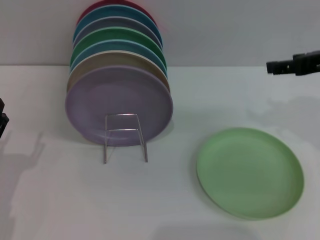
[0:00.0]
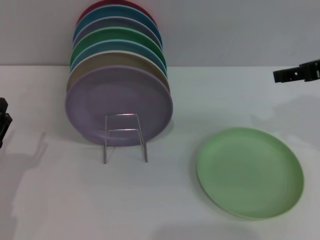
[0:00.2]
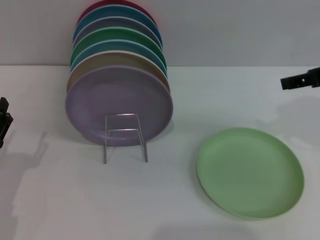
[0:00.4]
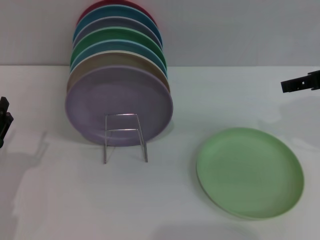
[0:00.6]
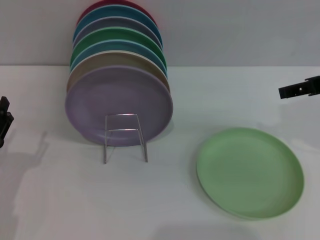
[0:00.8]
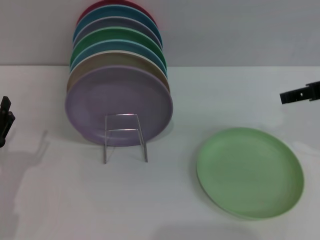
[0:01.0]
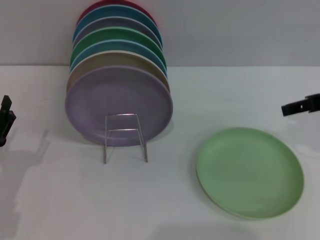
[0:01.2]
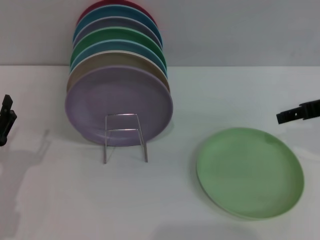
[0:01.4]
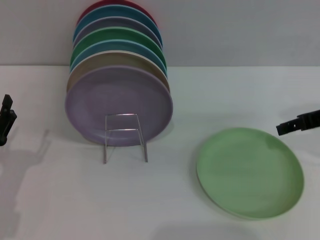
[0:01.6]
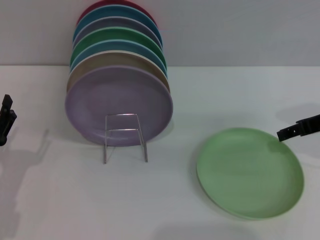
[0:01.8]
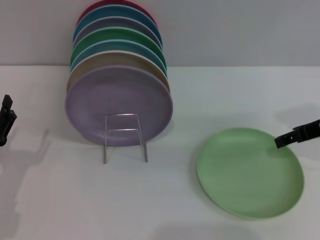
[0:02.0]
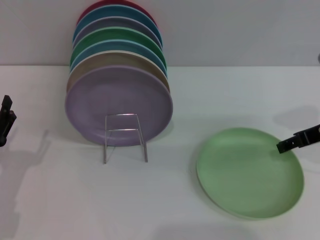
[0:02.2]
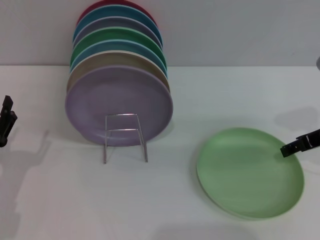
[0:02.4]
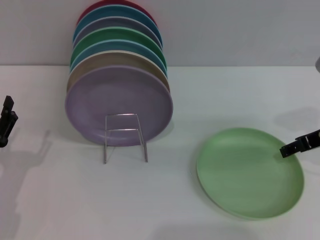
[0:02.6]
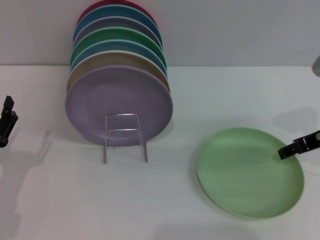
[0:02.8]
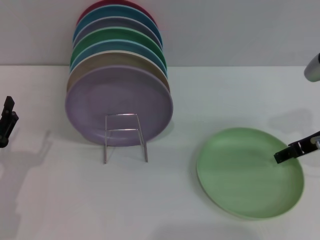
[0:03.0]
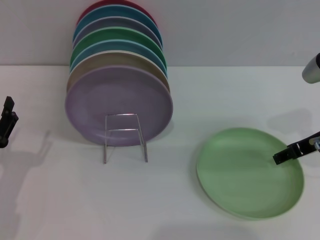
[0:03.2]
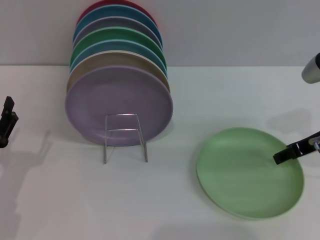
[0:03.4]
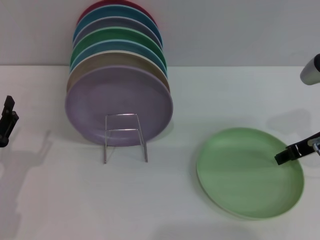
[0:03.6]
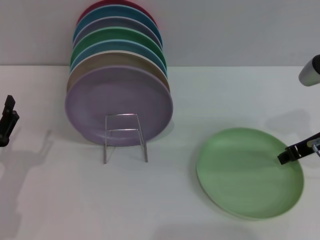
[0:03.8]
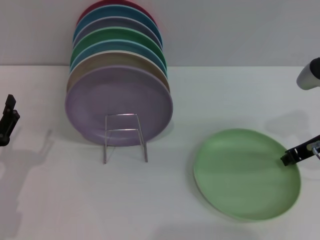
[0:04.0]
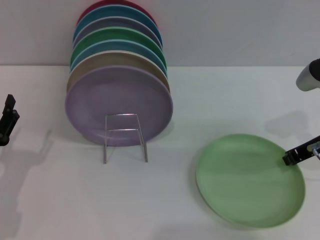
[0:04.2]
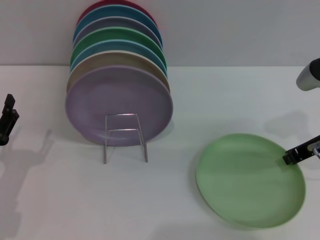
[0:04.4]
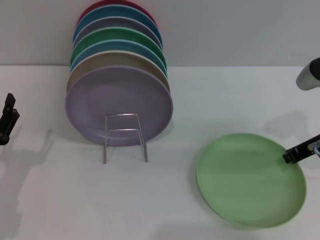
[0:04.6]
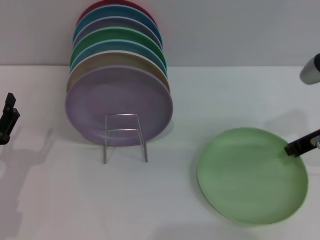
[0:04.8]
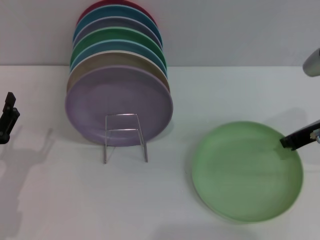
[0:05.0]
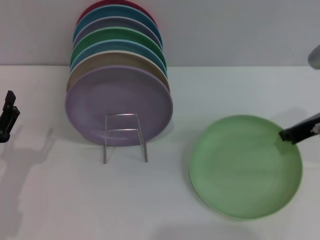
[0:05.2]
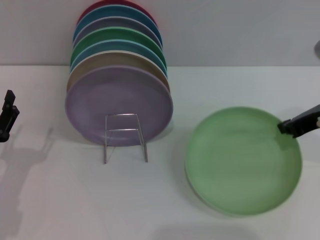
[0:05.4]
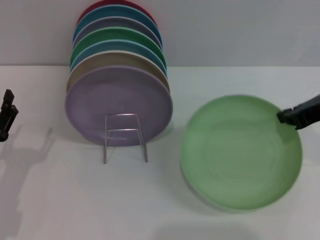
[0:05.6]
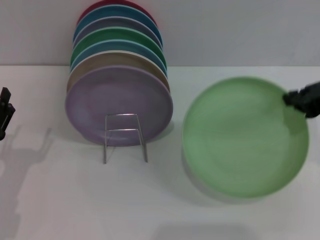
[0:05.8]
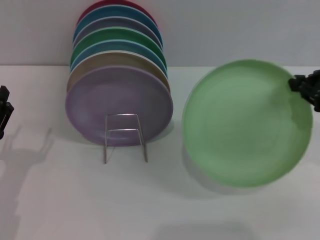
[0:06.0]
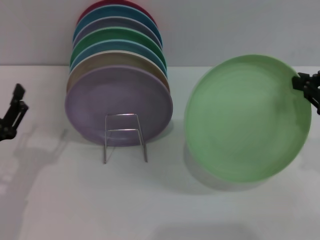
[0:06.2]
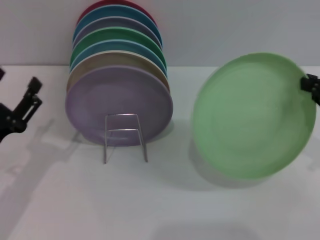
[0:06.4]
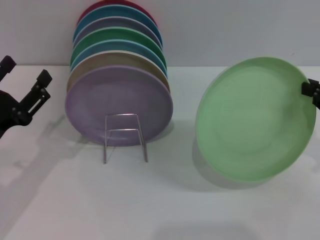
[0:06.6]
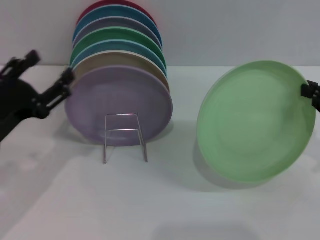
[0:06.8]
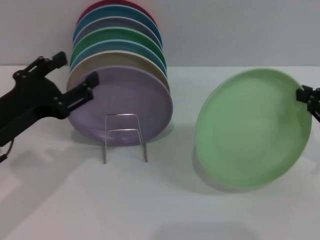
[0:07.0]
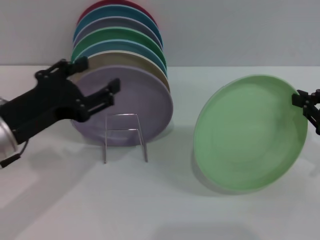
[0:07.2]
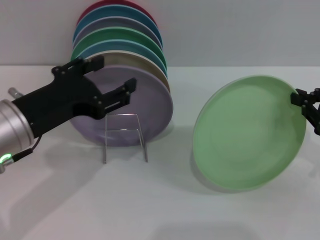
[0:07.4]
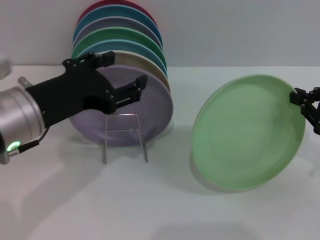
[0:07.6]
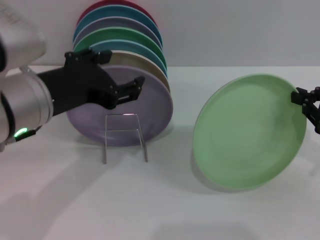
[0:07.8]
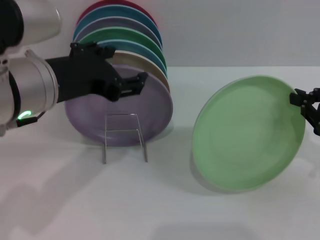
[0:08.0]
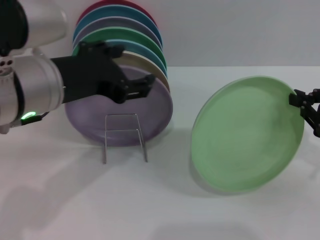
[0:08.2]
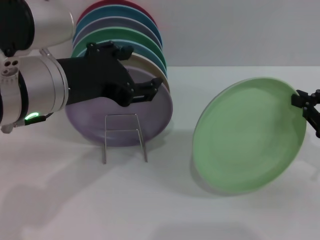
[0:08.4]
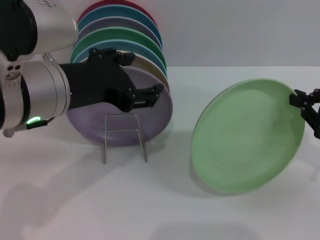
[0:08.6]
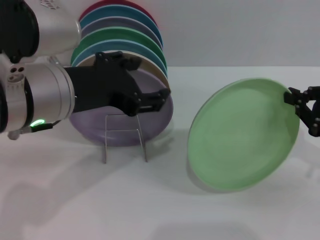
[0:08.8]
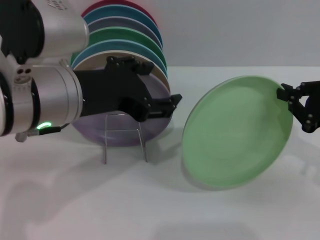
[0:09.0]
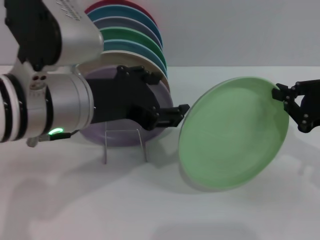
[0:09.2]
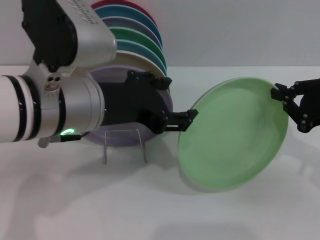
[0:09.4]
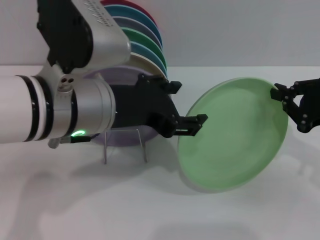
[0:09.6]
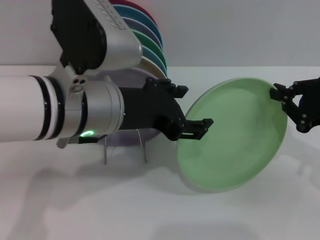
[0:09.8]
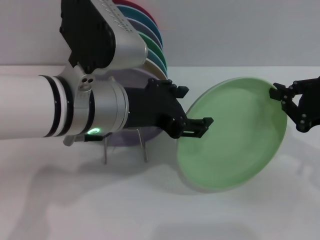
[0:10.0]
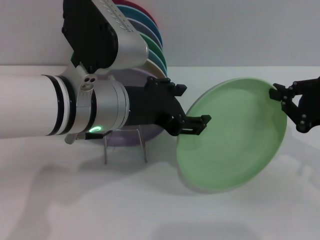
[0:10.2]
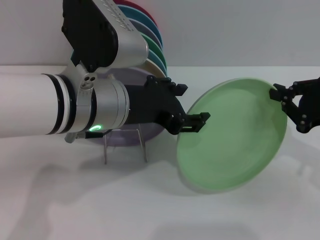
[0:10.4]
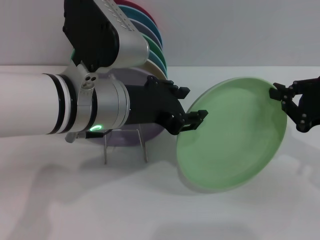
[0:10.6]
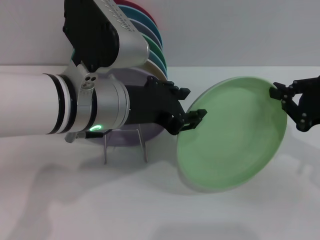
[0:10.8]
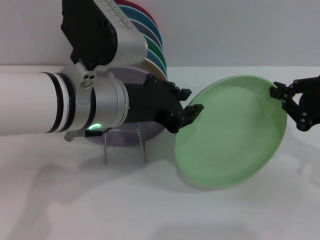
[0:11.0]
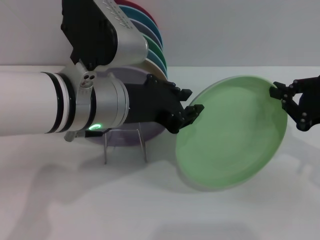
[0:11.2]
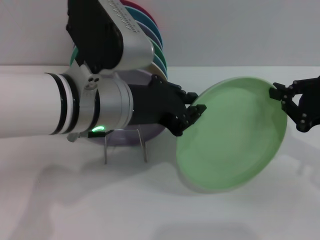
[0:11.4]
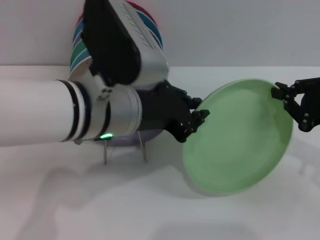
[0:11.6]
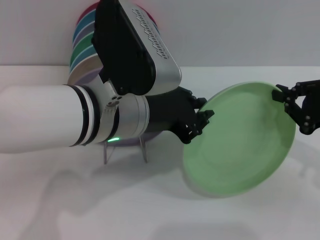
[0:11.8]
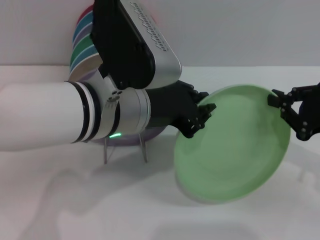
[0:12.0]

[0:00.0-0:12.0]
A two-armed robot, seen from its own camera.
Task of the whole recording: Grip the plate with one hand, pass it to the other, then set it on the shelf.
Step, 0:00.0 to 0:06.0: Pick up the plate with the right gripper.
0:00.0 to 0:01.6: The right gripper moves downward, some 5 cm.
0:01.6 to 0:03.0: The grippers stay close to where they were, moving slightly.
0:03.0 to 0:04.4: The right gripper closes.
0:04.4 to 0:06.0: The right gripper travels upward and backward by some 10 cm.
0:06.0 to 0:07.6: The right gripper shifts some 10 cm downward. Meanwhile the left gripper moves upward and to the right, some 20 cm.
0:07.6 to 0:09.0: The left gripper changes place by roughly 5 cm.
0:09.0 to 0:10.4: The left gripper changes place by about 5 cm.
0:10.4 to 0:12.0: The left gripper closes its fingers.

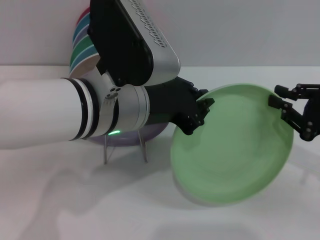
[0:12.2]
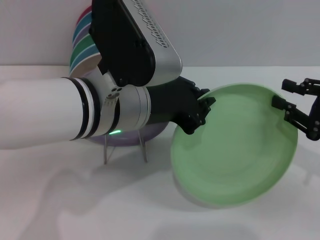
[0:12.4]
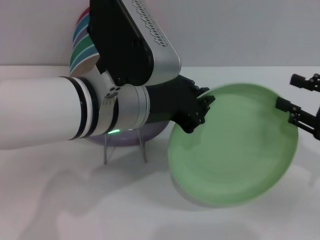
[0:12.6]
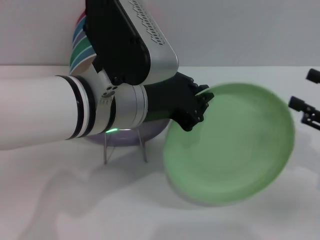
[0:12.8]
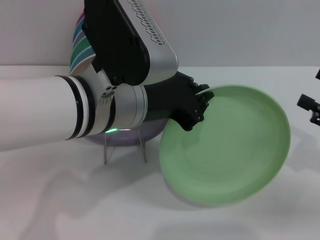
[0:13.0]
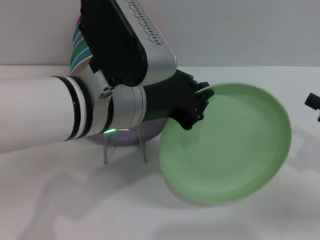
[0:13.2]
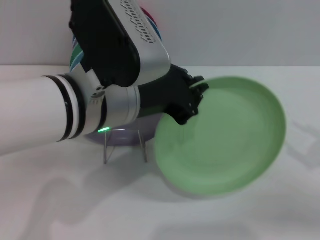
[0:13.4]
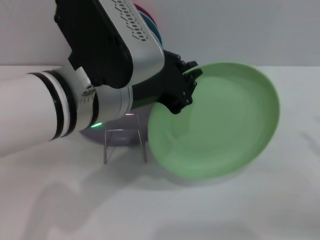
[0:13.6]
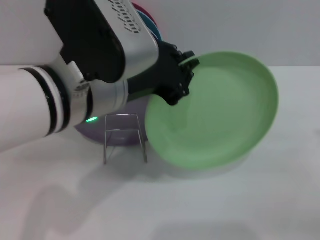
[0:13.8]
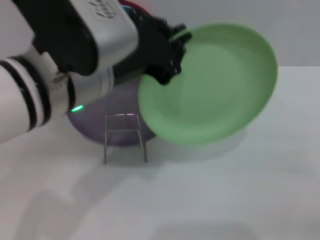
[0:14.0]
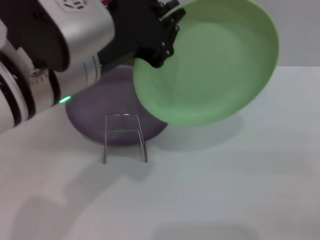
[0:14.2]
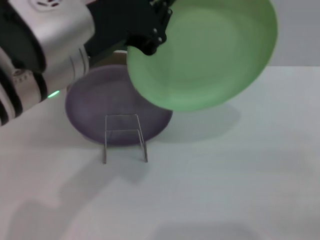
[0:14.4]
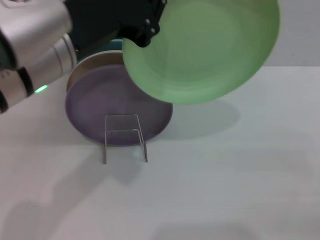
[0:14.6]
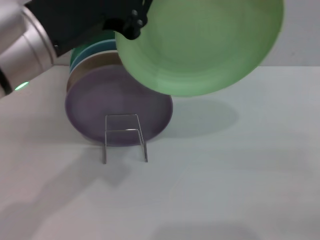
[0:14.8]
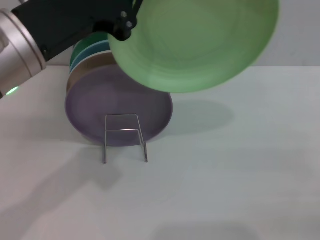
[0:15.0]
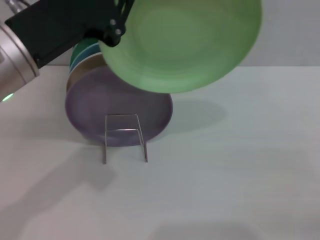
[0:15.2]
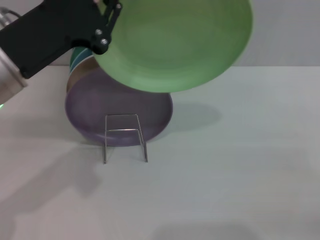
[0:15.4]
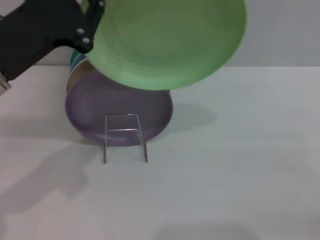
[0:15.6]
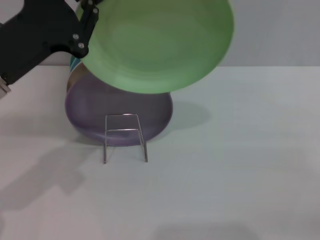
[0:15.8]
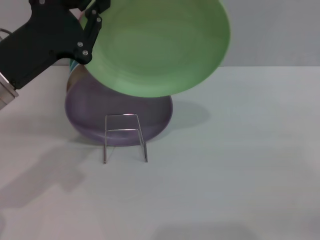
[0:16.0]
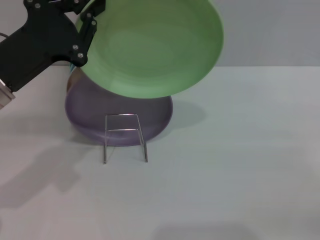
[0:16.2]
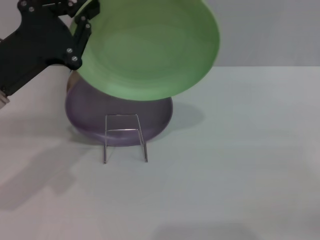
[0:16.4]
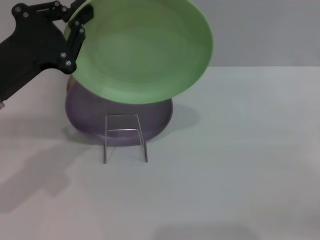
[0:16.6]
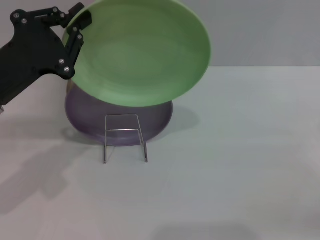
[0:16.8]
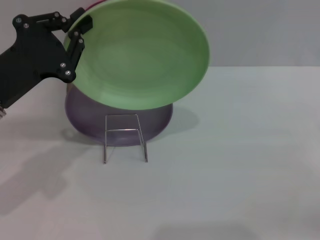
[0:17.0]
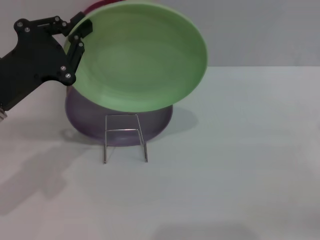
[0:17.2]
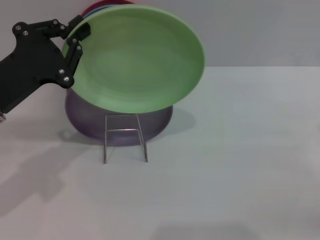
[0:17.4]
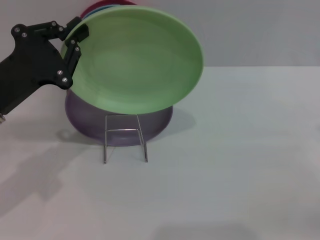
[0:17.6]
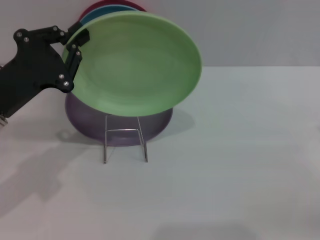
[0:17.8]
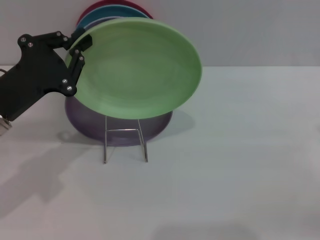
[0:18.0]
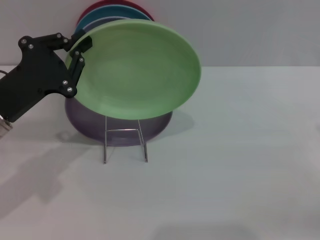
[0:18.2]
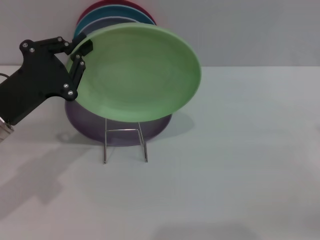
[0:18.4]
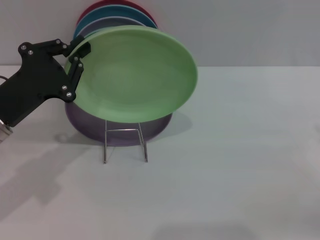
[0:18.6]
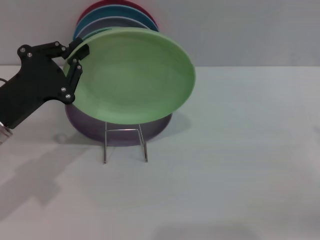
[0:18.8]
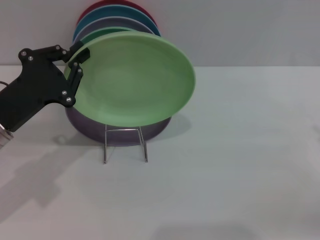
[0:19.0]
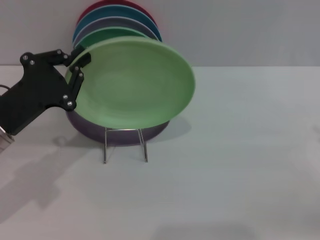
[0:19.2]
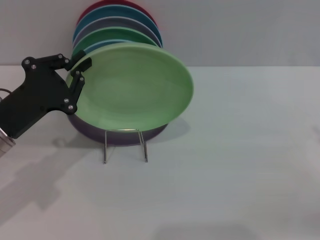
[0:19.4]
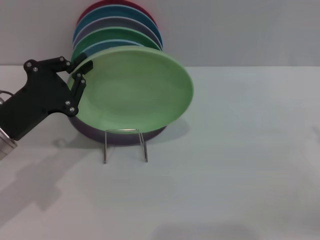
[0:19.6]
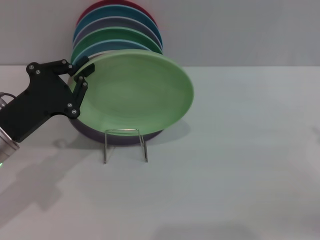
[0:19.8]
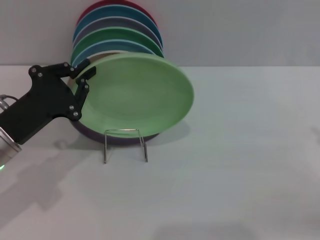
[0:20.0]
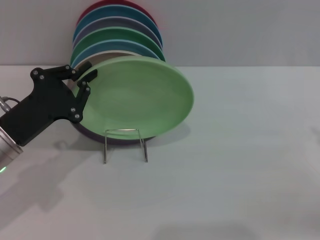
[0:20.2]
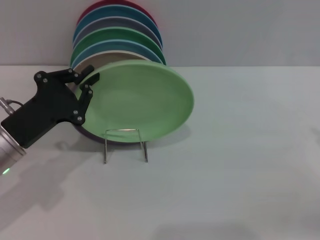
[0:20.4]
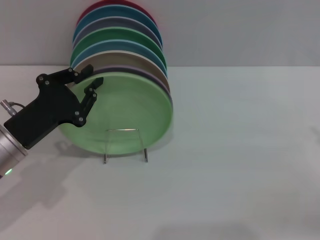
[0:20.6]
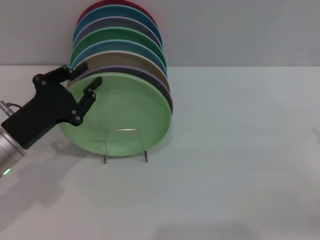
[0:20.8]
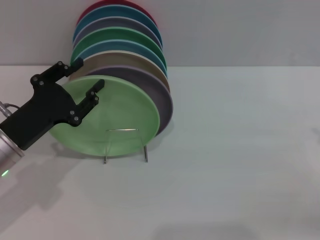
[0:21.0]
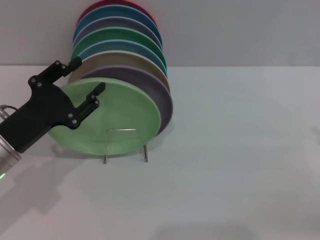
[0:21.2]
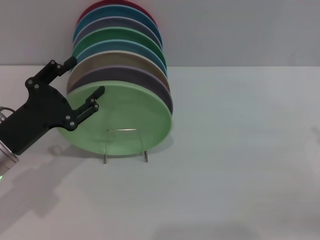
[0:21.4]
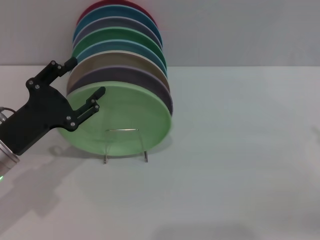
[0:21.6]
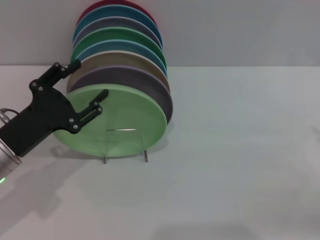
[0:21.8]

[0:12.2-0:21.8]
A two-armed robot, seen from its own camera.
Task of the whole recording: Grip the plate with one hand, pass it to the other, then set it on the shelf.
0:12.2 to 0:13.8: The right gripper moves to the right and backward, some 10 cm, and opens up.
0:13.8 to 0:15.4: The left gripper is displaced to the left by about 10 cm.
0:15.4 to 0:17.0: The left gripper shifts about 5 cm downward.
0:17.0 to 0:18.6: The grippers stay close to where they were, moving slightly.
0:18.6 to 0:20.2: There are only small adjustments of the grippers.
0:20.2 to 0:21.8: The left gripper opens its fingers.
